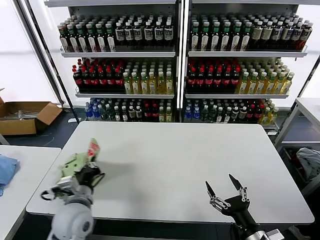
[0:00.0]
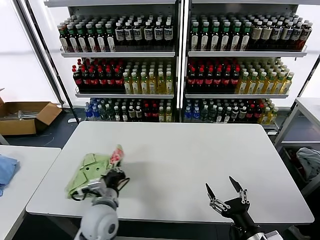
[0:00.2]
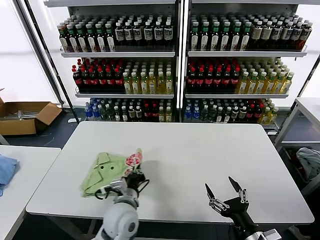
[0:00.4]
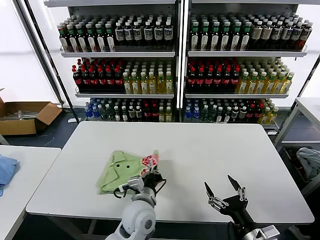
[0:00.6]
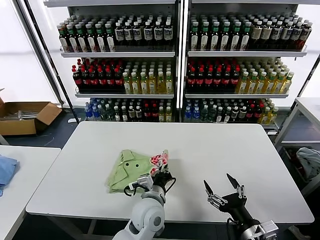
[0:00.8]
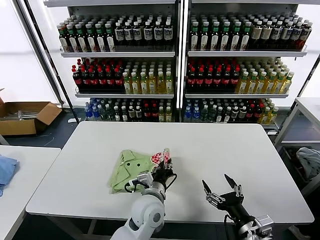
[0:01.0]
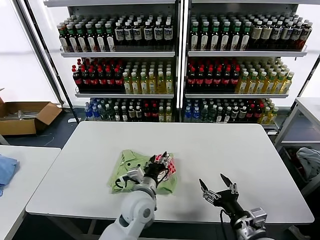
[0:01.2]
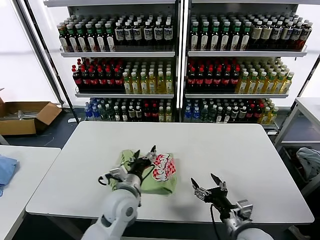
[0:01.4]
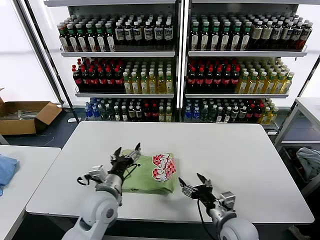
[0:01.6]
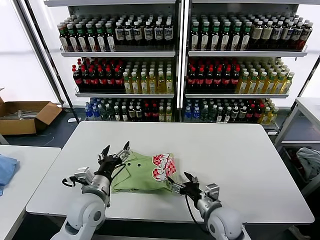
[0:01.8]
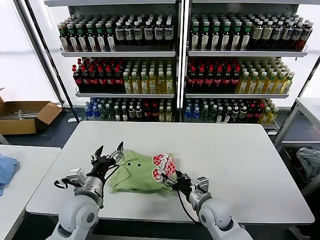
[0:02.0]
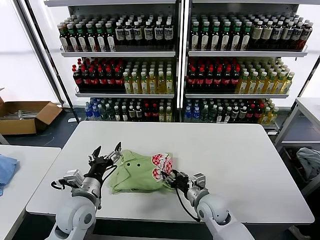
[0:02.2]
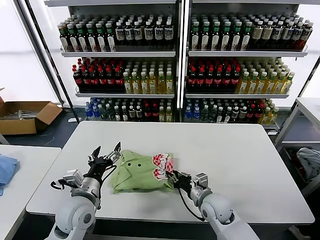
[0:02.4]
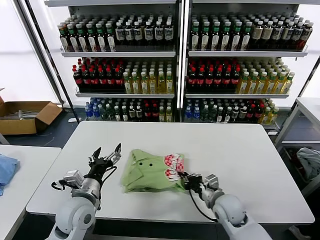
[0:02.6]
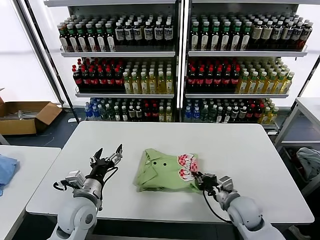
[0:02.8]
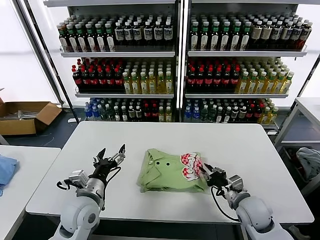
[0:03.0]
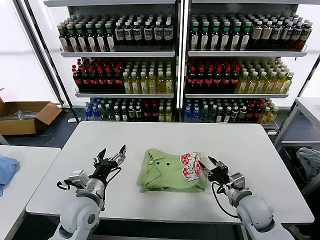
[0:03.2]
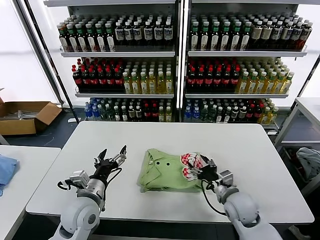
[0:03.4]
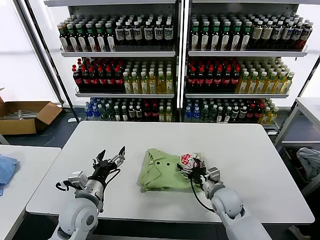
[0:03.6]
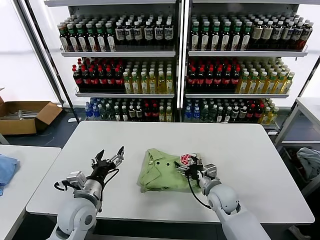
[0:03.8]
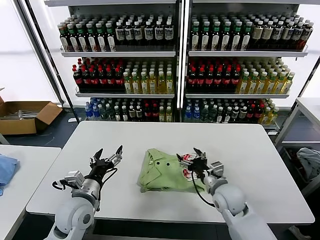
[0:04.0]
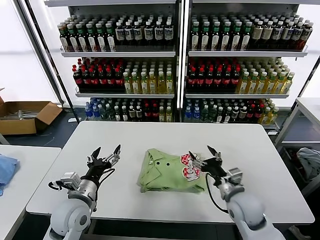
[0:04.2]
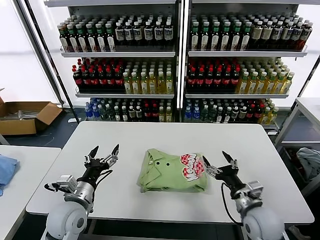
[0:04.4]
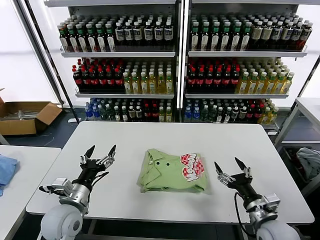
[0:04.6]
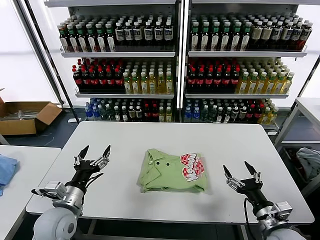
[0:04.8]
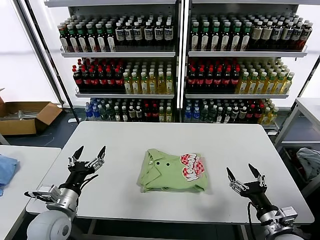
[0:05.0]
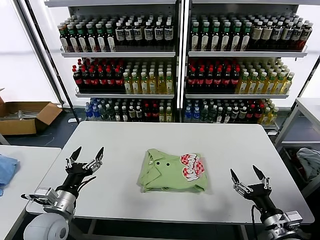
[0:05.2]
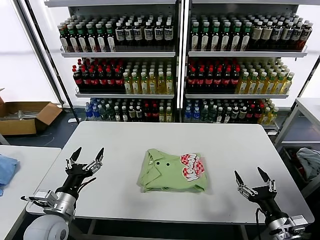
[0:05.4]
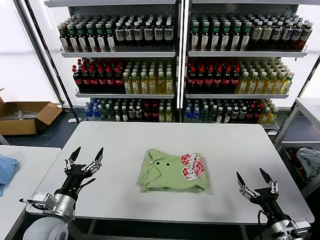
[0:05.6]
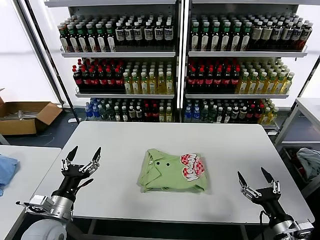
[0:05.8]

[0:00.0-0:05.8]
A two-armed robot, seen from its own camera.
Task of the whole recording: fold and organize the clothes.
Step, 0:01.4 to 0:04.0: Drag the clothes to the center of the table.
0:00.0 to 0:01.4: The left gripper shifts some 15 cm to the right, and opens up. The right gripper travels forward by approximately 5 cm.
0:01.4 to 0:02.8: The left gripper goes some 15 cm to the left. Meanwhile the right gripper moves forward, some 10 cm, and closes up.
0:02.8 to 0:04.4: The right gripper shifts by roughly 5 cm, and opens up.
0:04.4 to 0:05.8: The right gripper shifts roughly 15 cm backward and to the right. The left gripper ends up some 5 cm from where it was.
